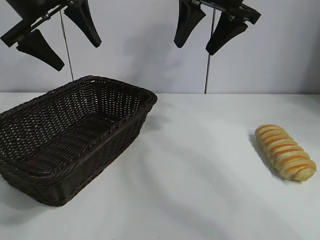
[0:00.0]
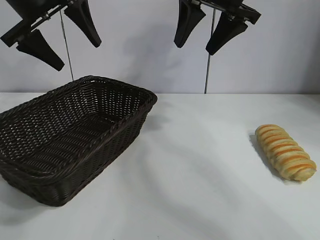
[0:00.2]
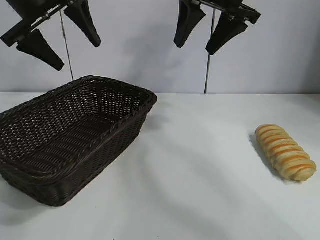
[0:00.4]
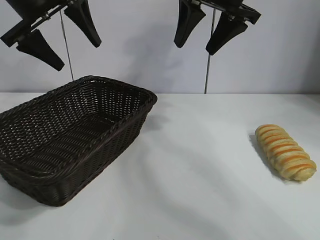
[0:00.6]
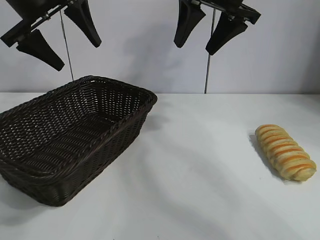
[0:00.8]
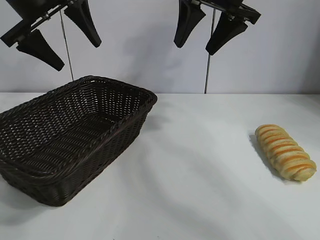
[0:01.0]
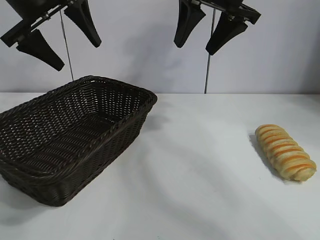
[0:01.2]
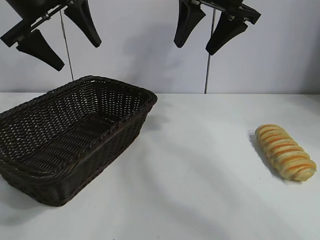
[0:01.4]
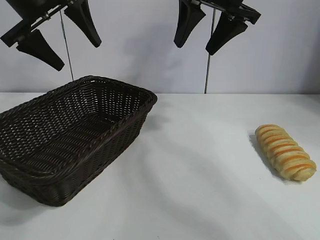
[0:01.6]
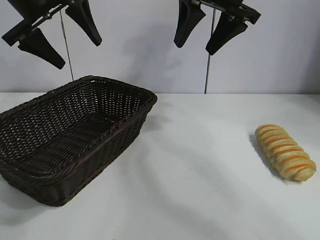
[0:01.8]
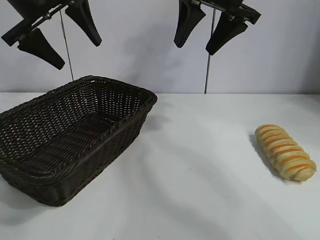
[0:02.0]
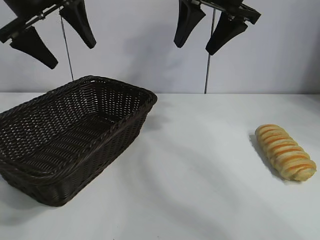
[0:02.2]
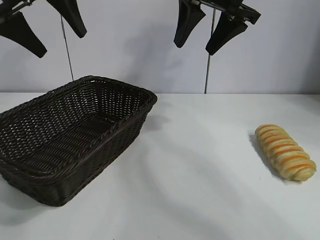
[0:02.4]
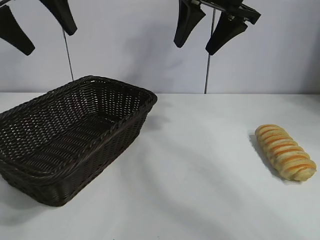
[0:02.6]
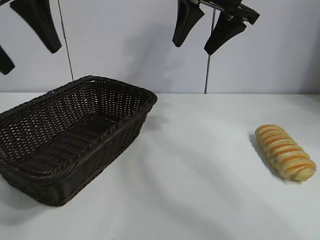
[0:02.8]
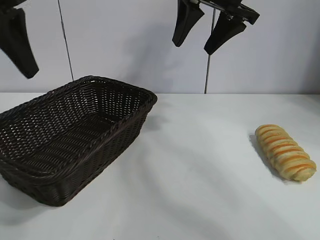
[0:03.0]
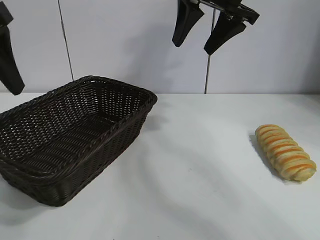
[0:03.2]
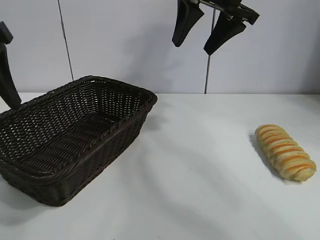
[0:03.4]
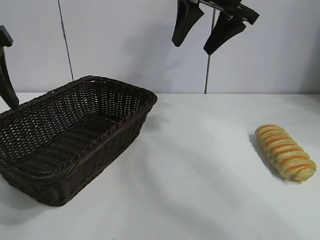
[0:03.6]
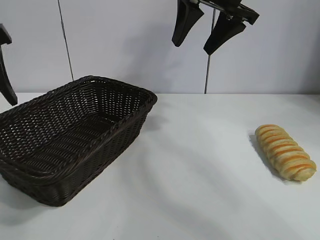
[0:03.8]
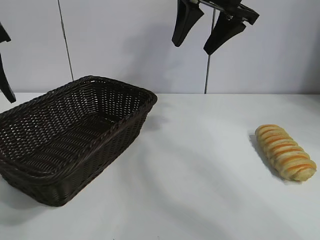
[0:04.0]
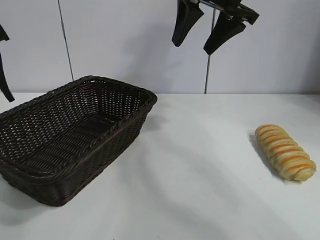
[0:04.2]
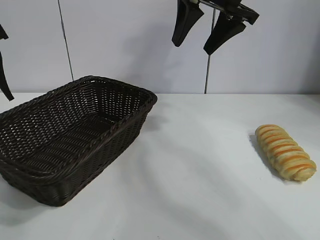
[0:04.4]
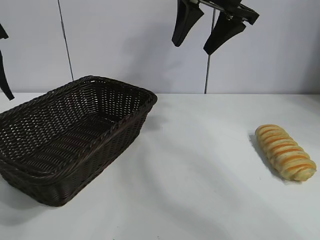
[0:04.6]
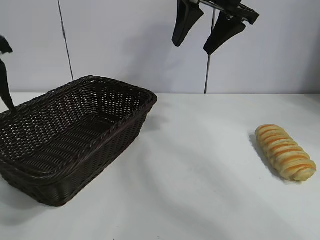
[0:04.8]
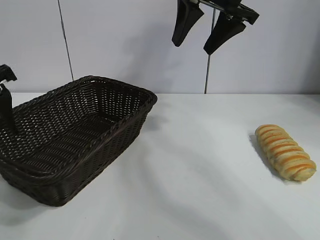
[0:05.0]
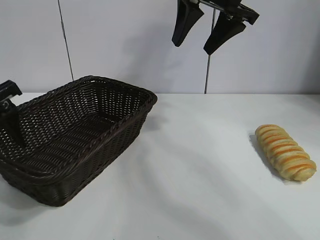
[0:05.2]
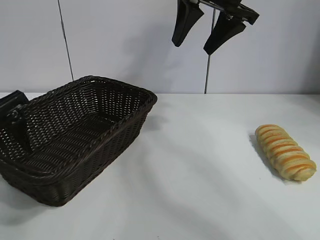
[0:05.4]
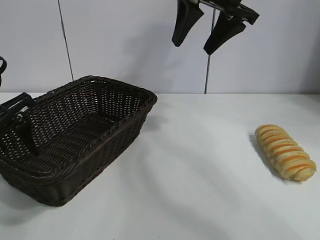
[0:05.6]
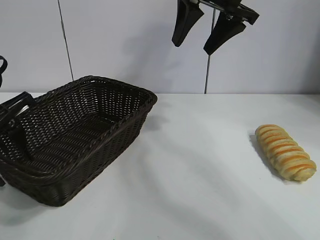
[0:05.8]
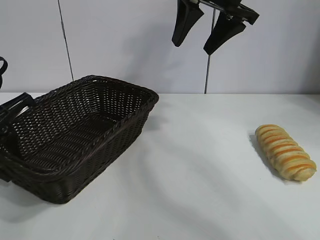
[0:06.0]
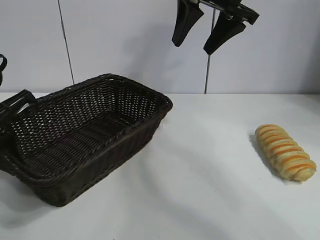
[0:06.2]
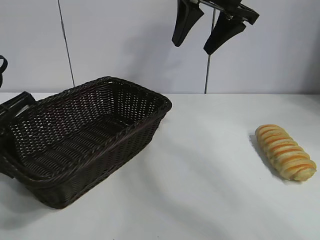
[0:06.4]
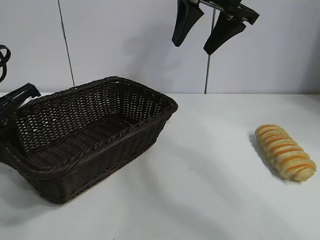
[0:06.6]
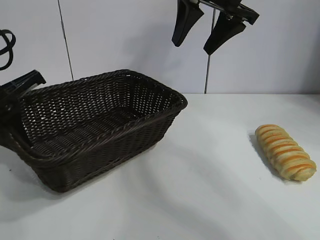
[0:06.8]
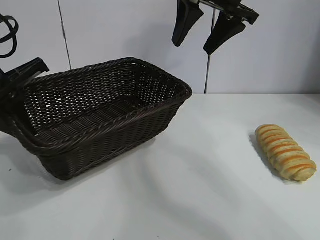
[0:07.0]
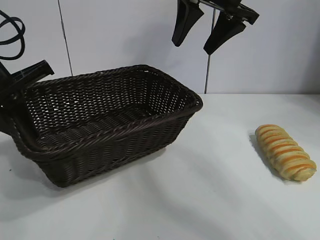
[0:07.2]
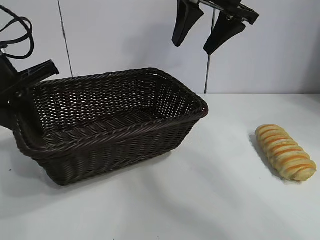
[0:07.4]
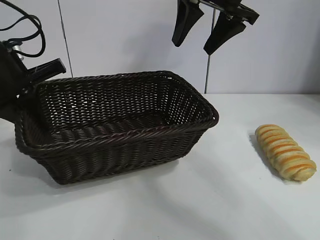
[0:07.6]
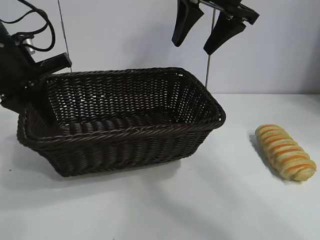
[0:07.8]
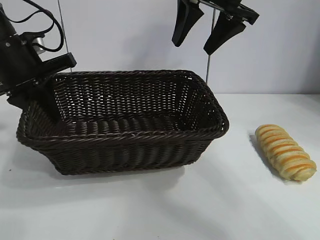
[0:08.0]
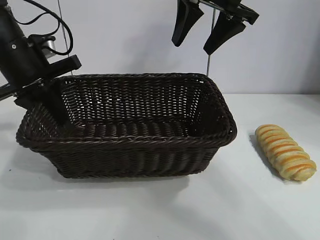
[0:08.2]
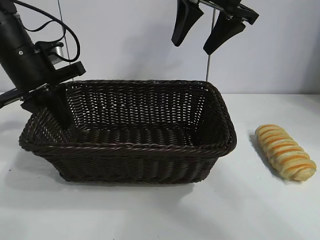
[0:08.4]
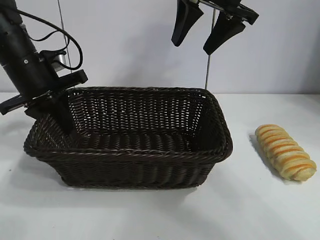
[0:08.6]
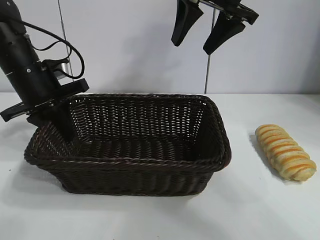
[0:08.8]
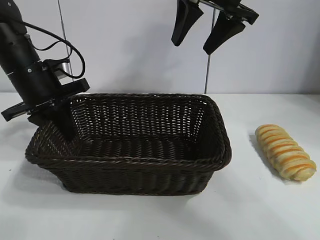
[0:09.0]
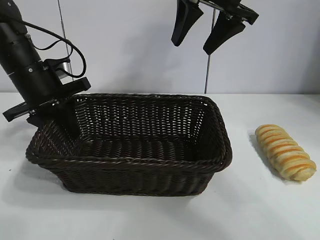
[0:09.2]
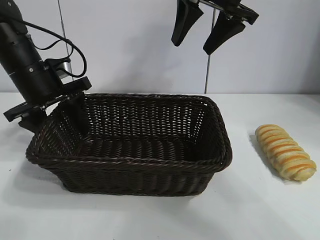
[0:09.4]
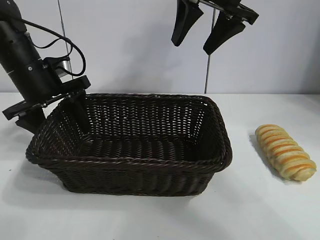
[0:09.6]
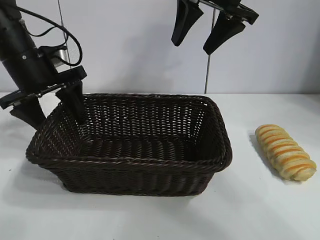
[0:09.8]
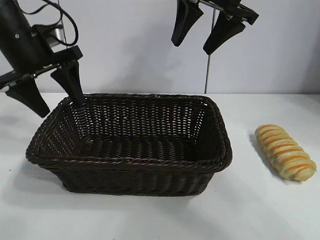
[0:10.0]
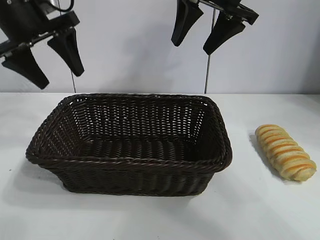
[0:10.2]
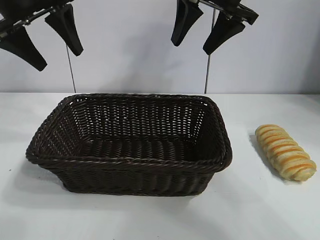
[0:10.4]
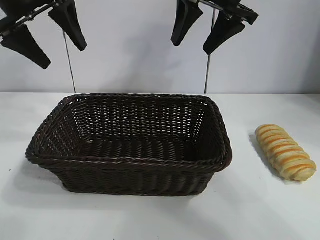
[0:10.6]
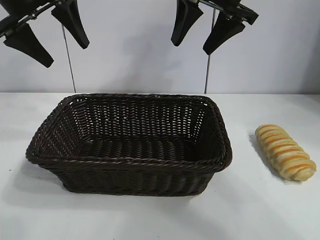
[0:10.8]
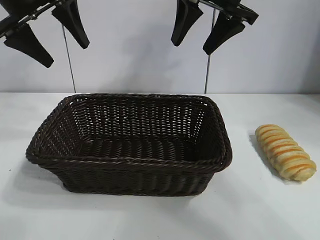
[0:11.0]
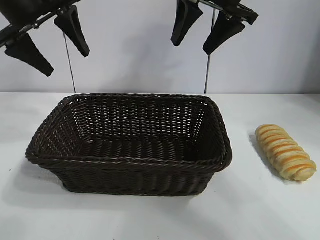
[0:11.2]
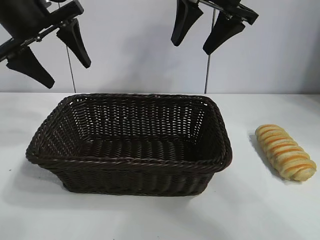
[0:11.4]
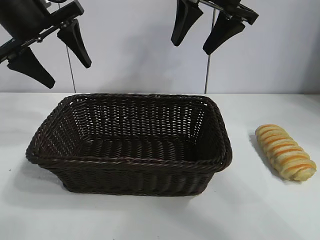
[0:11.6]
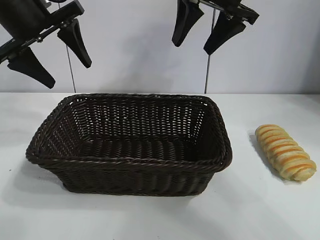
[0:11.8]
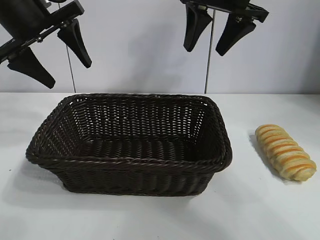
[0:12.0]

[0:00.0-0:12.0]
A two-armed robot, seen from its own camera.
Task of the whole recording: pick up the long bread and put it into the basket.
Step, 0:01.8 to 0:06.4: Grasp the basket with the left gripper.
Step, 0:06.6 to 0:09.4: Place the basket in the center of the table with the left gripper.

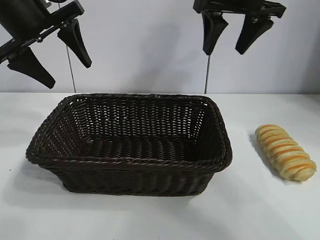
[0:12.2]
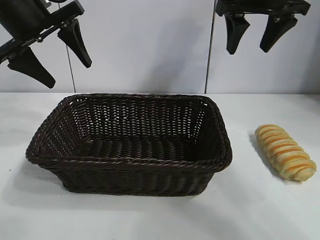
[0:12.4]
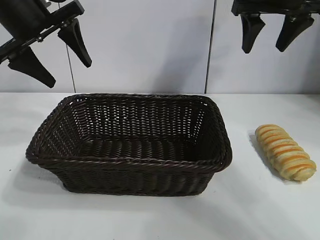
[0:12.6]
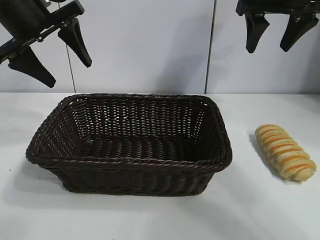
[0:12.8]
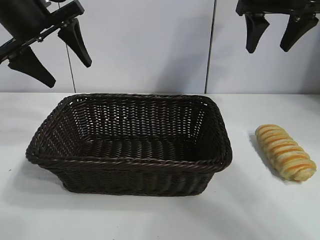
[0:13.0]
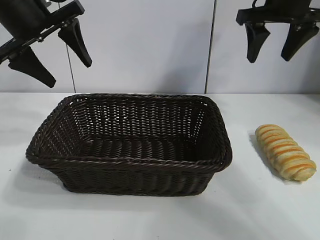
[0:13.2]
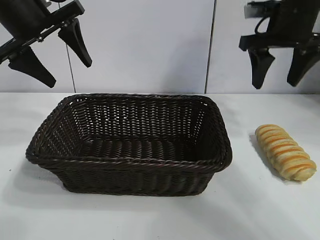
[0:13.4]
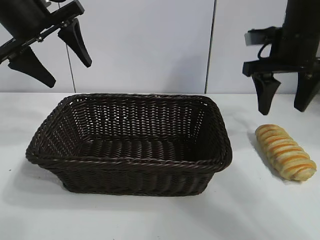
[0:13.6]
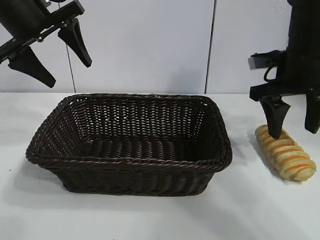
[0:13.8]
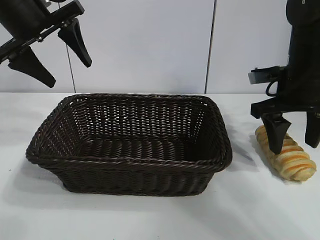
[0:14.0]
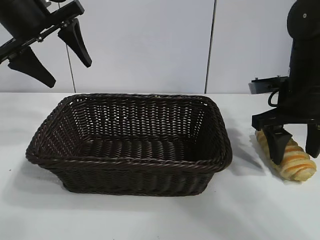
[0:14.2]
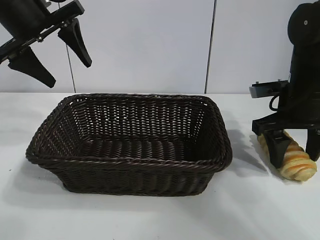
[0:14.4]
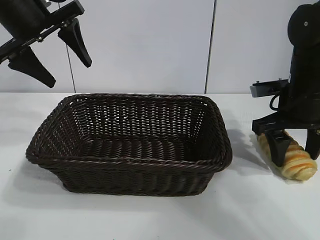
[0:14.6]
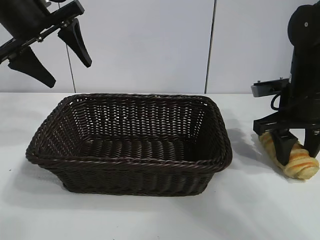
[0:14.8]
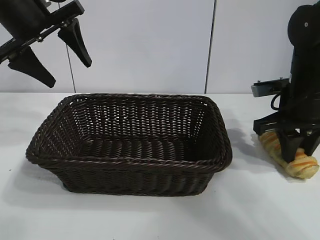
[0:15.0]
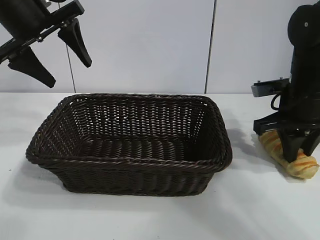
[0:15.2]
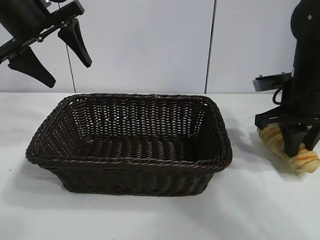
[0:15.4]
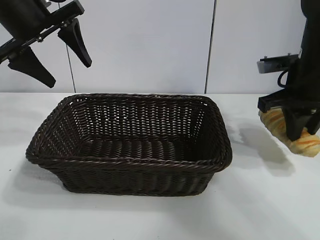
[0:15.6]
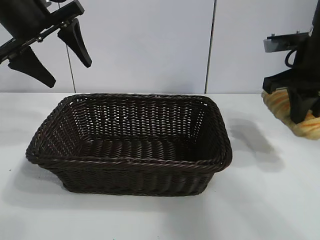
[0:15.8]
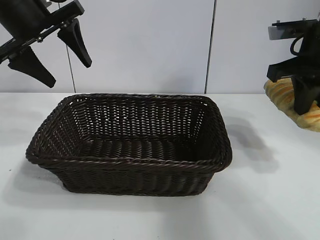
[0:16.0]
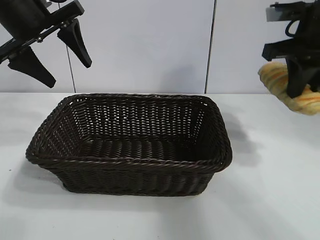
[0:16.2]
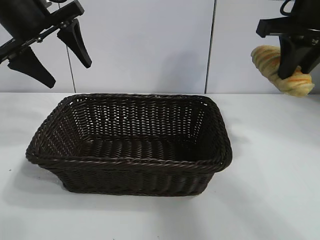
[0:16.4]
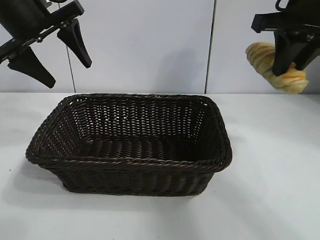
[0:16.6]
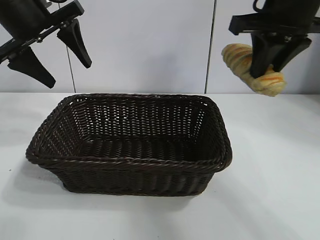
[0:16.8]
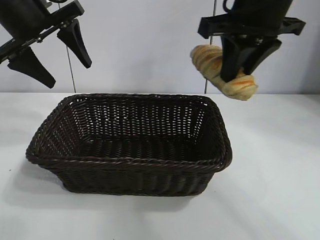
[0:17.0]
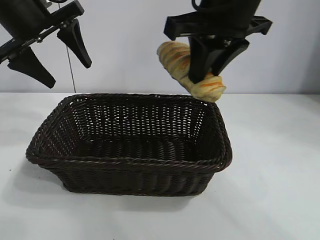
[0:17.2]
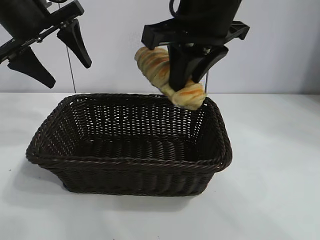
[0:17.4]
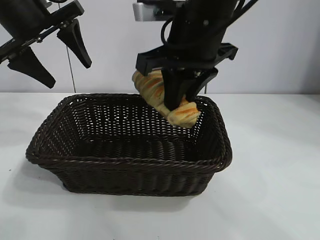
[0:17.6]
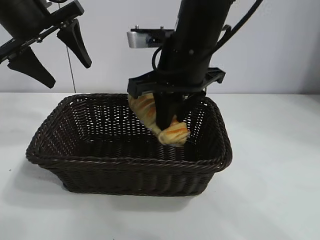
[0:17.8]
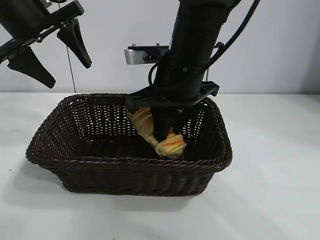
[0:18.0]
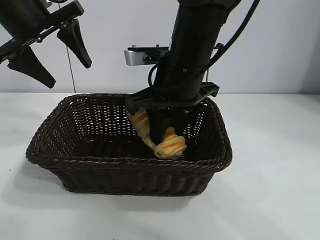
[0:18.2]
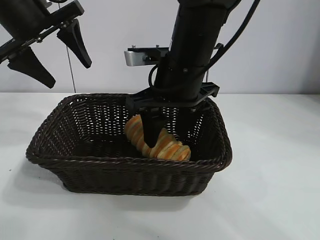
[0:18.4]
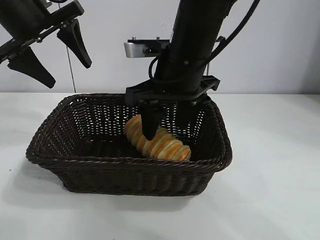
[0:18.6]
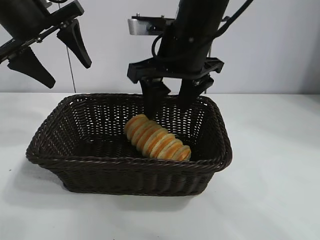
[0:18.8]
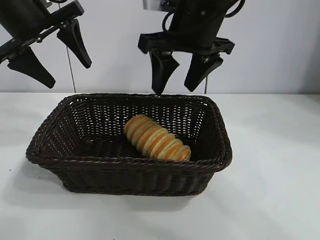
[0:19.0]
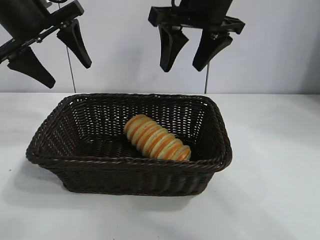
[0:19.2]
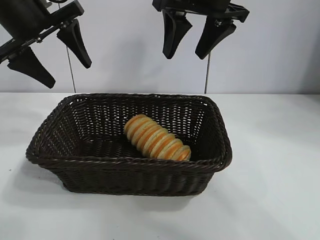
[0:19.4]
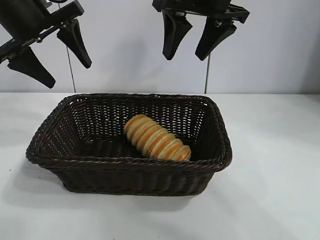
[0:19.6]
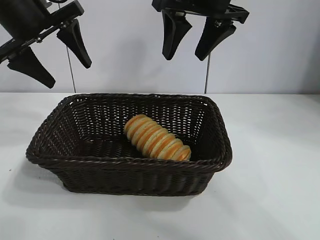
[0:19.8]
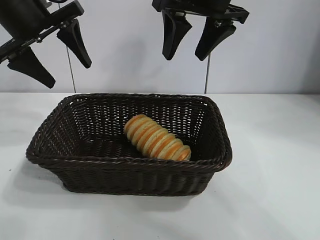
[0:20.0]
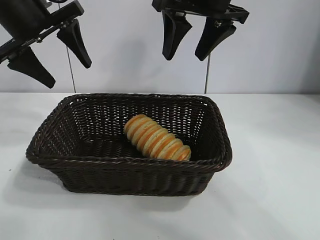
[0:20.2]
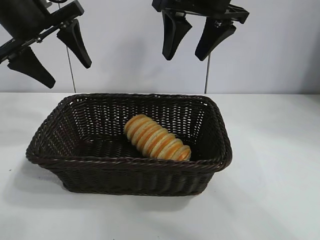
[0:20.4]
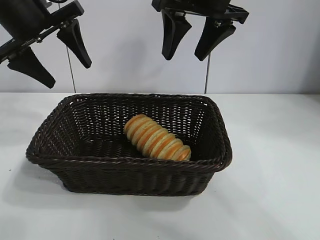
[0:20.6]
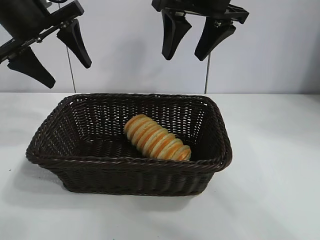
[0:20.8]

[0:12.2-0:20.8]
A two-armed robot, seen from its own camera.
Task of the whole recording: pick up the long bread and put it into the basket.
Step, 0:12.2 to 0:15.2: Grasp the long bread with right gripper.
Step, 0:15.4 to 0:18.6: Place the long bread in the basket with right gripper.
